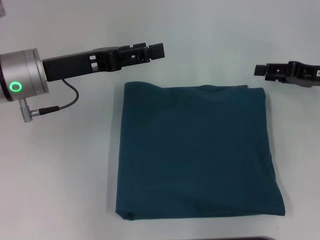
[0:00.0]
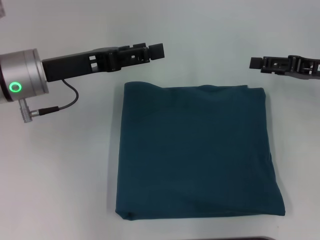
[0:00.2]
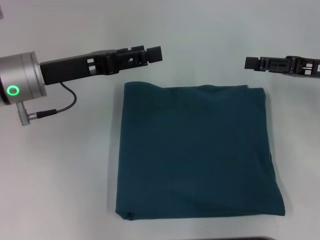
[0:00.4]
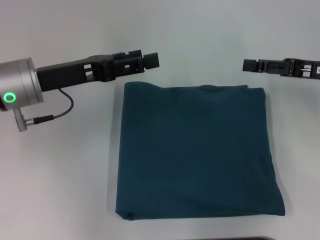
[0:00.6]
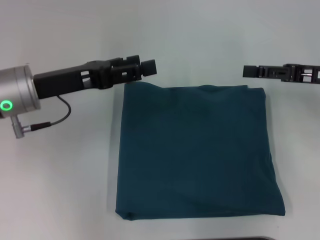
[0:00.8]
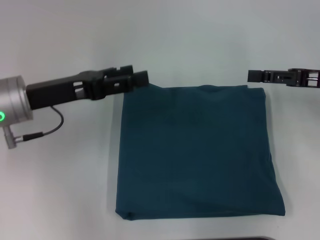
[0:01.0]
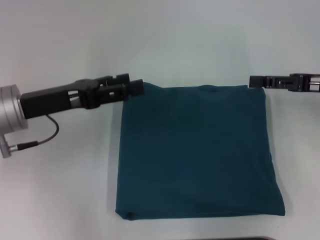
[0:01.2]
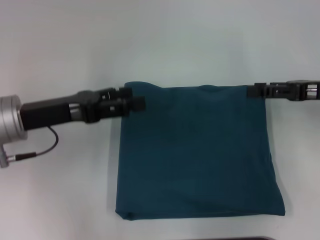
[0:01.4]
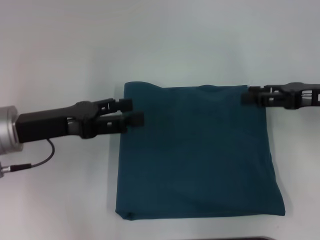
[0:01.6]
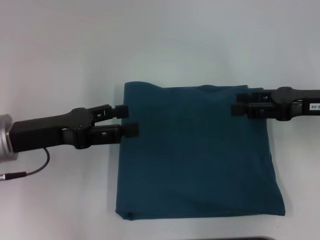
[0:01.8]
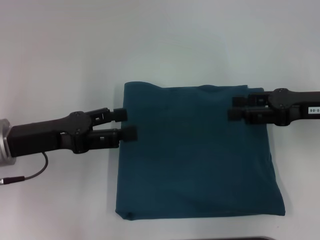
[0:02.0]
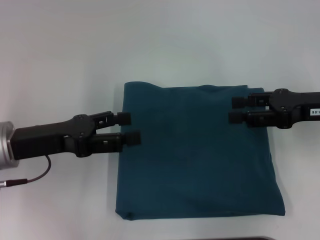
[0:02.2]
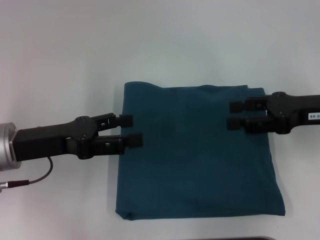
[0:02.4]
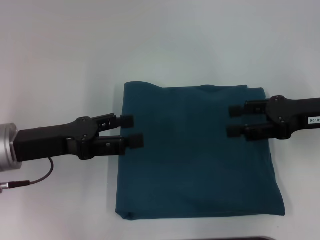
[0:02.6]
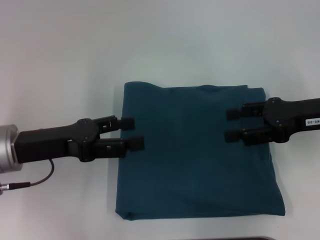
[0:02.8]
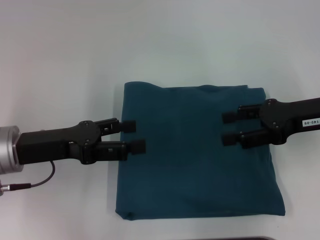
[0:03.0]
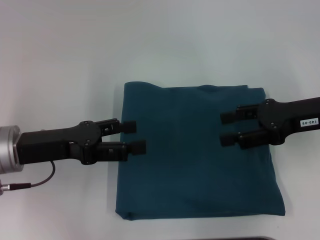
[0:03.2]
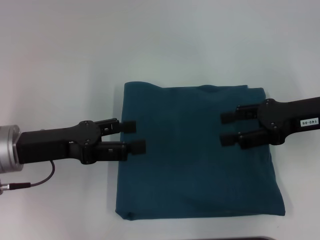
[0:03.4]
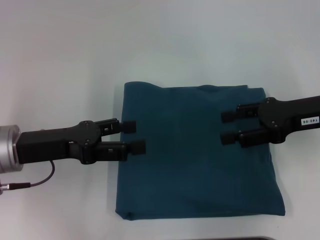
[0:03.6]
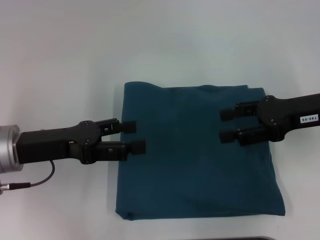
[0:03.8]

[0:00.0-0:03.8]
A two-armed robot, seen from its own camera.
0:00.0 to 0:01.2: The left gripper ends up some 5 cm from where it was; the right gripper opens.
0:02.6 to 0:03.8: There are only small adjustments of the grippers.

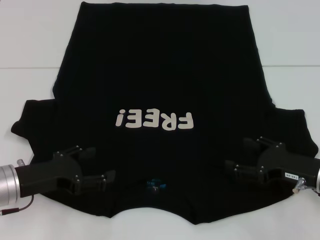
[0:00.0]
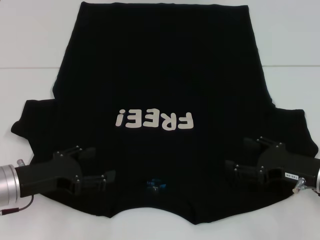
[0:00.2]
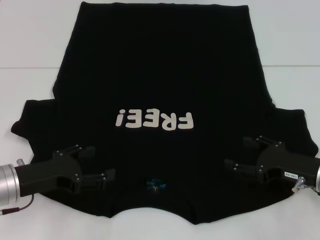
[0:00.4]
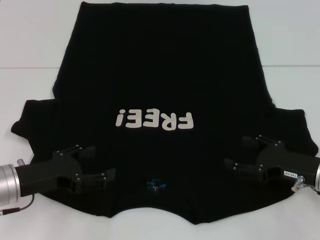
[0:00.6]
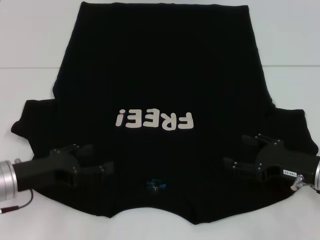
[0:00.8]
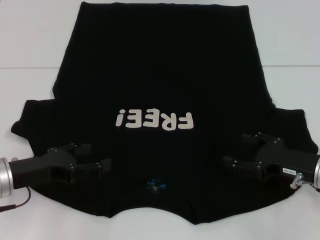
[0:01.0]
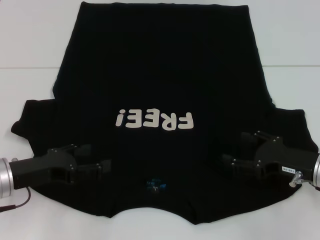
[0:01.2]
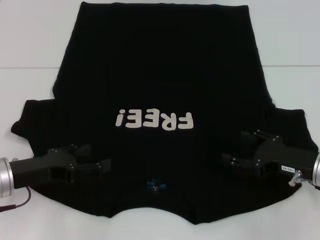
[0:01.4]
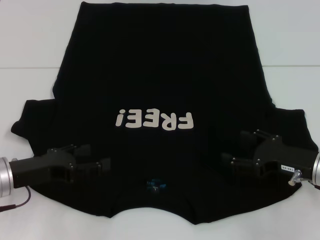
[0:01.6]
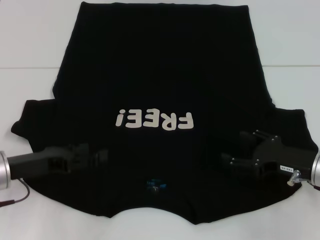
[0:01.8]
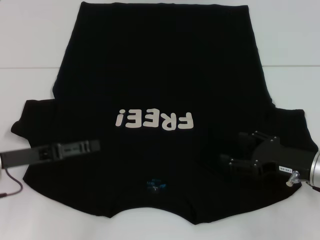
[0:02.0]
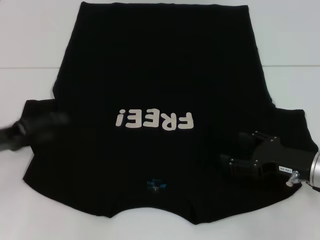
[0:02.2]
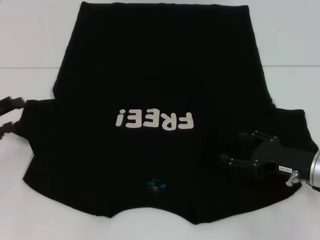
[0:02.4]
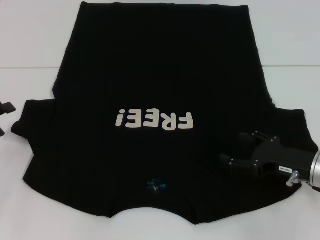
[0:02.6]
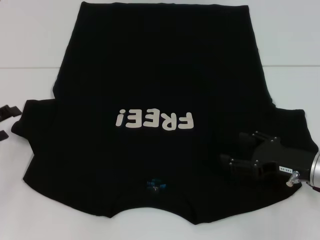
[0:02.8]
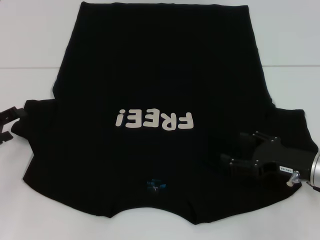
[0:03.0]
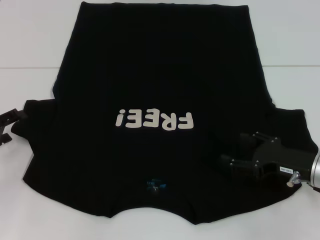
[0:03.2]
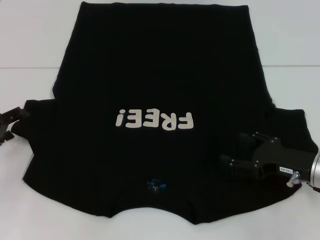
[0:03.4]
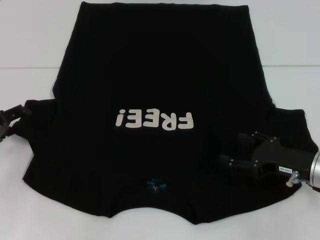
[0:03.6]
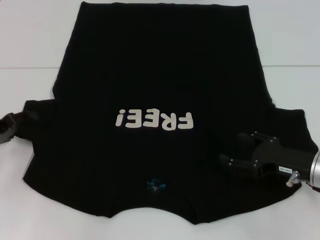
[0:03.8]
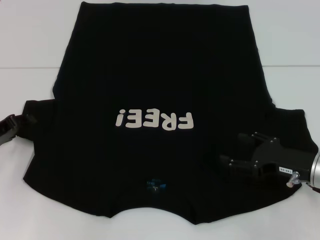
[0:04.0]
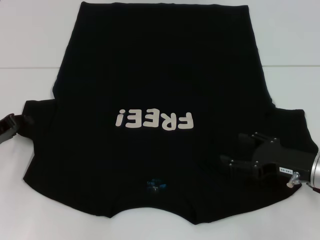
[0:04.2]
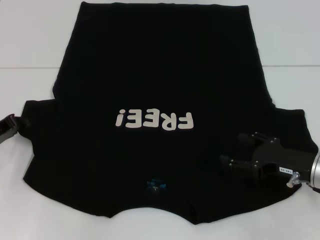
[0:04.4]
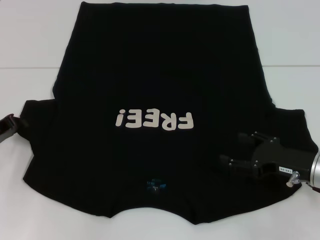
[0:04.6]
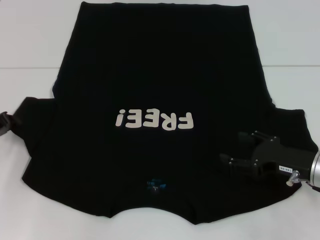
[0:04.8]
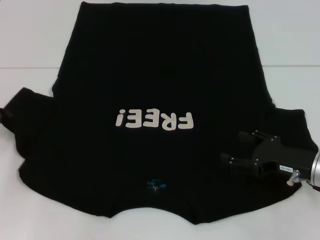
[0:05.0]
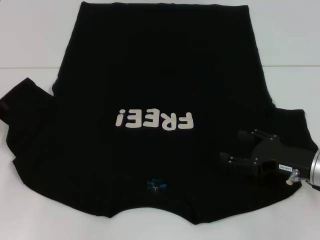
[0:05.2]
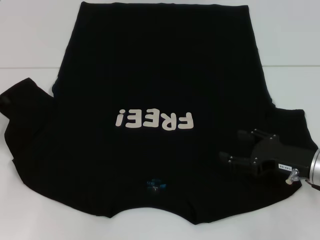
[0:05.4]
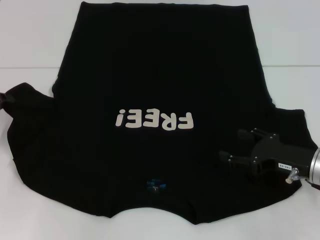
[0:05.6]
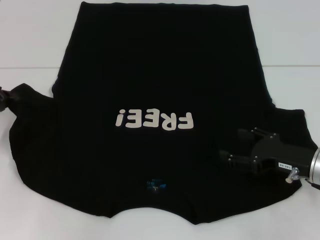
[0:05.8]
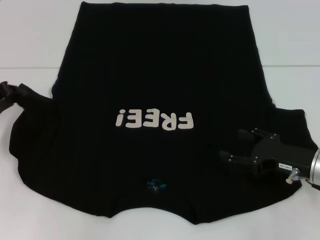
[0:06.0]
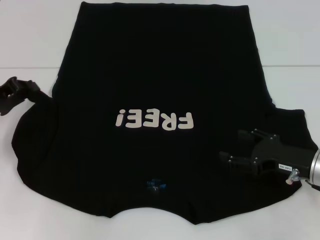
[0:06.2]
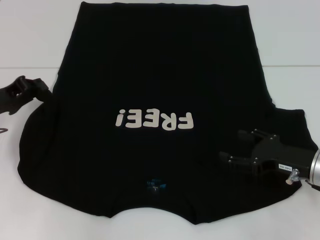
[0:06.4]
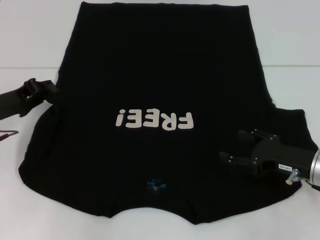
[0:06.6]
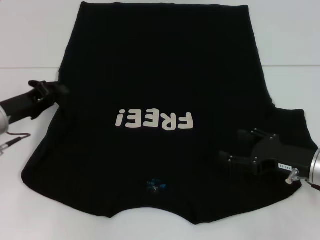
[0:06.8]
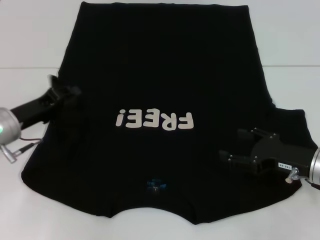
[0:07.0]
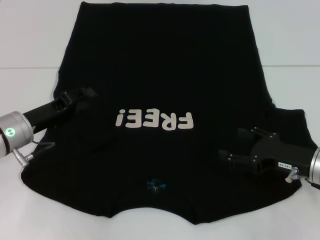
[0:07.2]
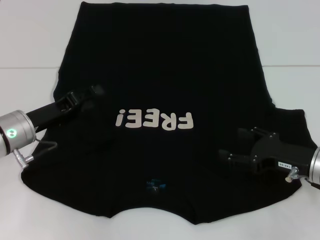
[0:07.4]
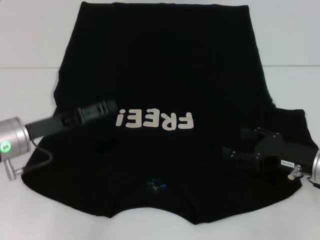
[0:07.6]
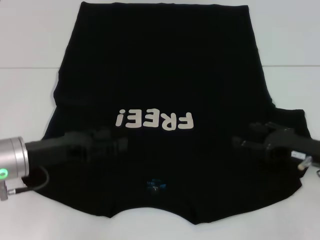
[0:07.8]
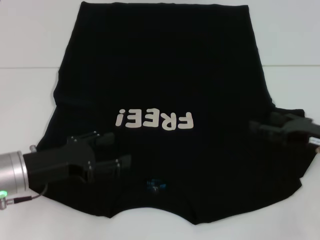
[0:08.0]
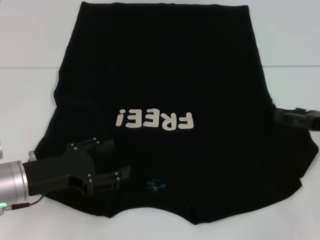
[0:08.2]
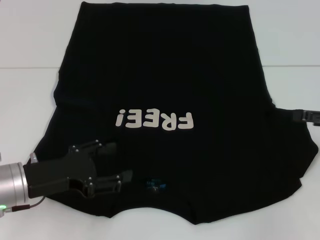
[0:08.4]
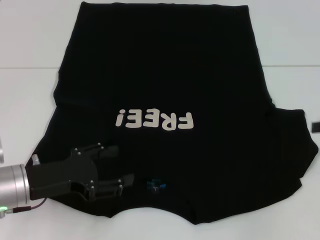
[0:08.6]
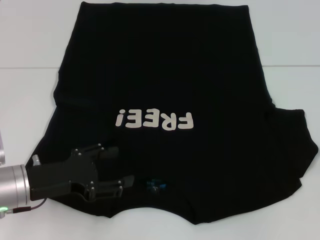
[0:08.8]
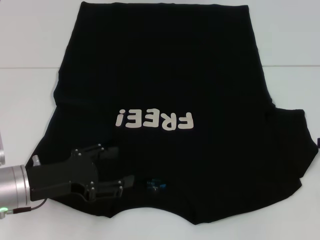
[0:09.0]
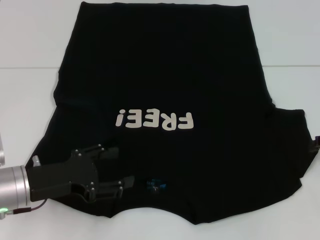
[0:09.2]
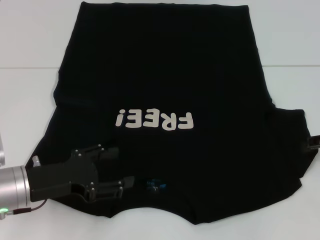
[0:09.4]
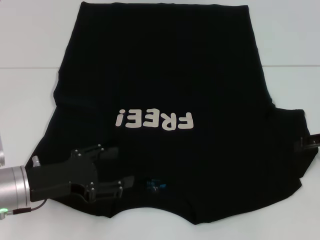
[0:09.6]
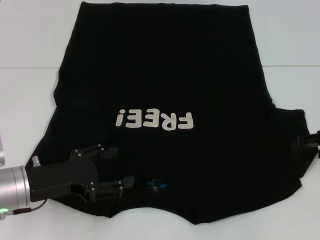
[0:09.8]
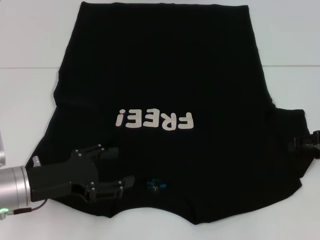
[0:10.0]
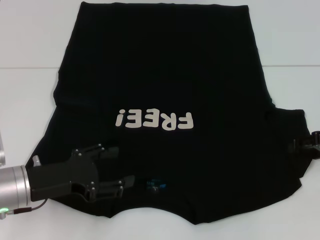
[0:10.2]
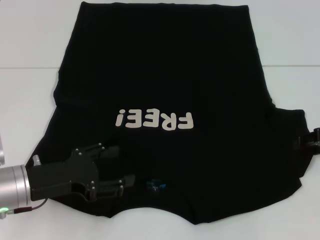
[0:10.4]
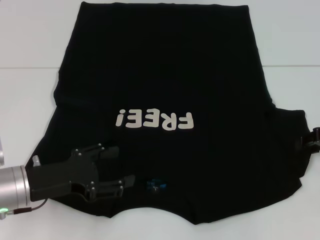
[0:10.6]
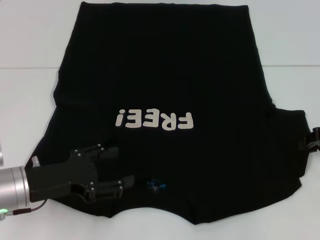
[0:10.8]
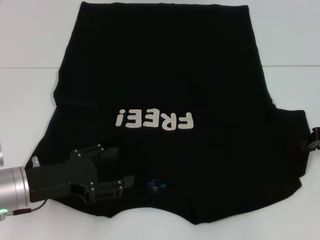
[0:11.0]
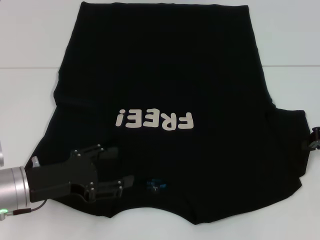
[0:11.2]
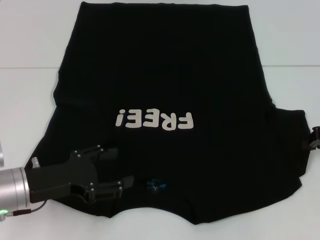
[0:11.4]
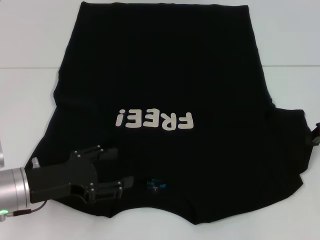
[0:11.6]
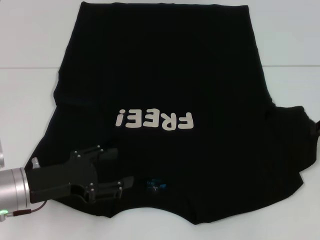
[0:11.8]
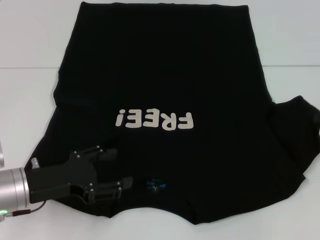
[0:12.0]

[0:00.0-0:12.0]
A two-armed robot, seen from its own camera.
Step, 0:00.0 to 0:07.6: Fold the bottom left sleeve with your left hand.
0:00.0 to 0:01.6: There are only small adjustments of the grippers.
0:01.6 to 0:03.0: The left gripper travels to the left by roughly 10 cm.
0:03.0 to 0:04.4: The left gripper closes up.
0:04.4 to 0:06.0: There are only small adjustments of the grippers.
0:06.0 to 0:07.6: The left gripper goes about 10 cm to the right, and opens its fingers.
0:07.6 to 0:09.0: The right gripper moves to the right and upward, approximately 15 cm, while the left gripper is displaced backward by roughly 5 cm.
0:10.4 to 0:12.0: The right gripper closes its fingers.

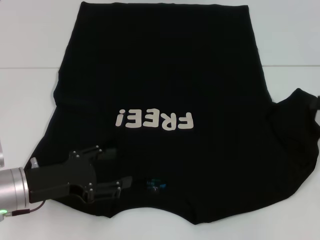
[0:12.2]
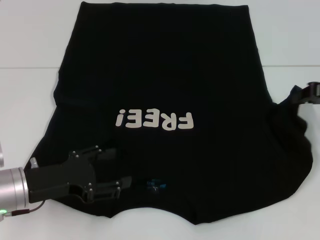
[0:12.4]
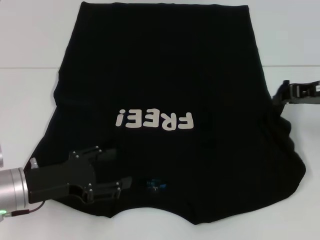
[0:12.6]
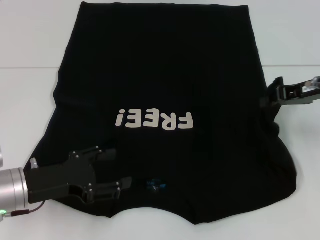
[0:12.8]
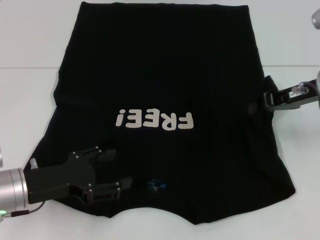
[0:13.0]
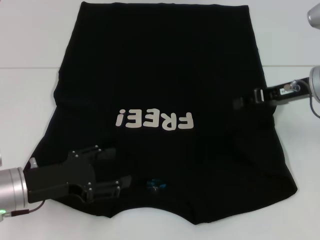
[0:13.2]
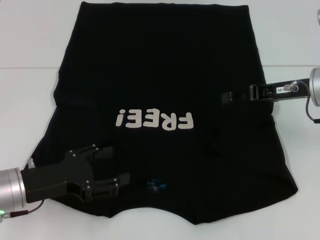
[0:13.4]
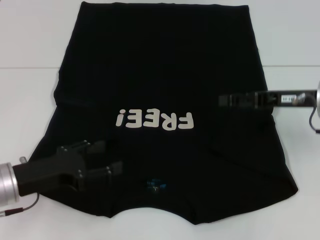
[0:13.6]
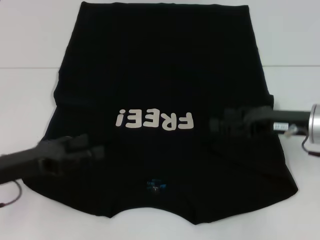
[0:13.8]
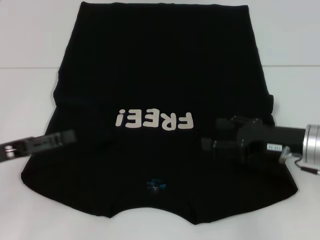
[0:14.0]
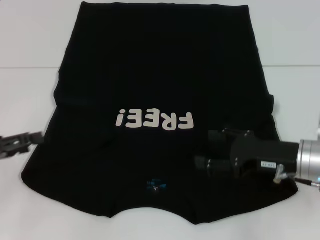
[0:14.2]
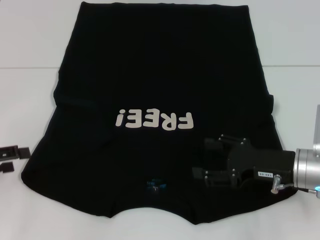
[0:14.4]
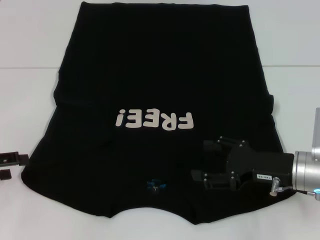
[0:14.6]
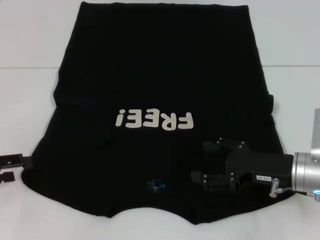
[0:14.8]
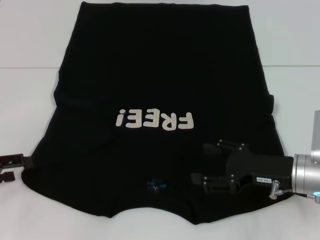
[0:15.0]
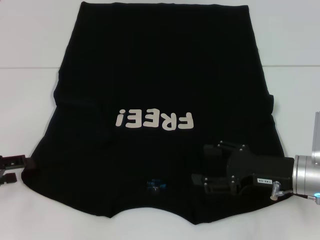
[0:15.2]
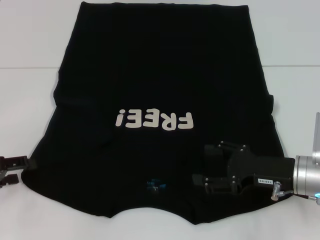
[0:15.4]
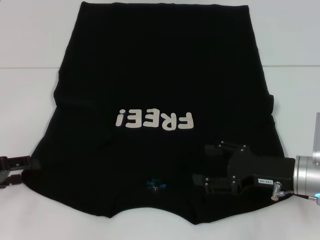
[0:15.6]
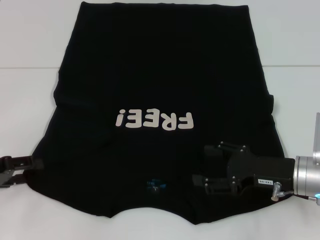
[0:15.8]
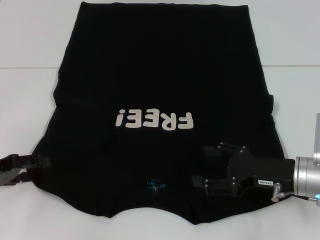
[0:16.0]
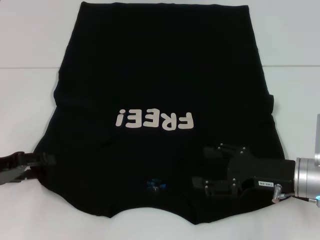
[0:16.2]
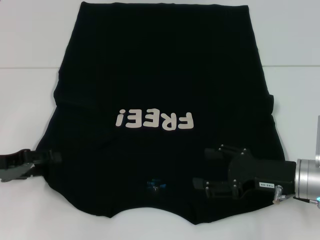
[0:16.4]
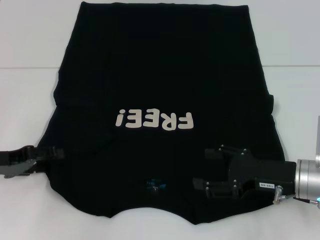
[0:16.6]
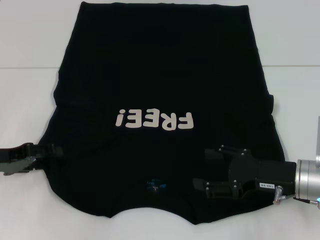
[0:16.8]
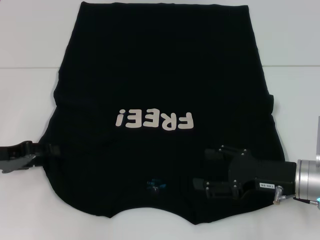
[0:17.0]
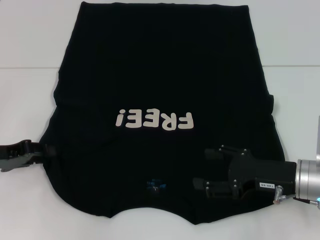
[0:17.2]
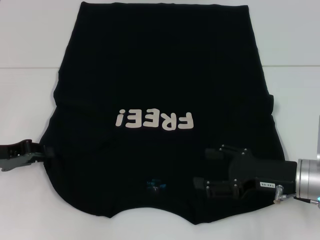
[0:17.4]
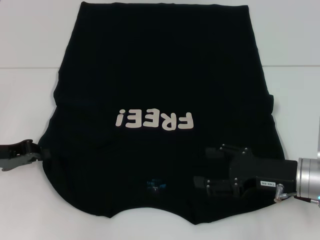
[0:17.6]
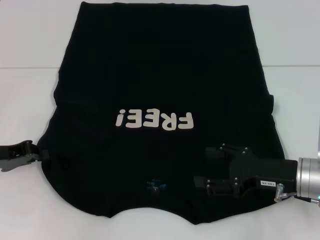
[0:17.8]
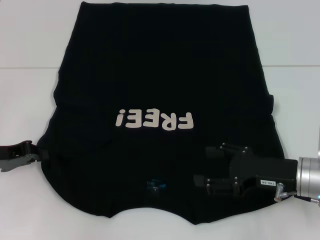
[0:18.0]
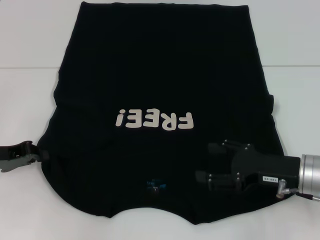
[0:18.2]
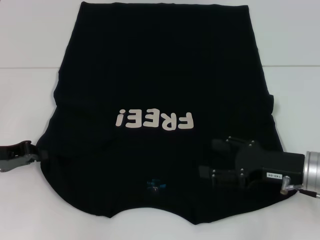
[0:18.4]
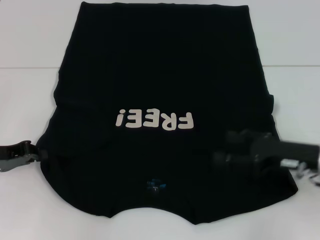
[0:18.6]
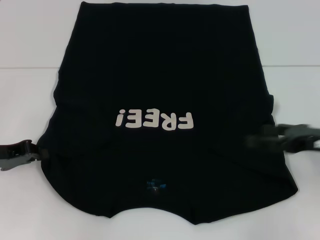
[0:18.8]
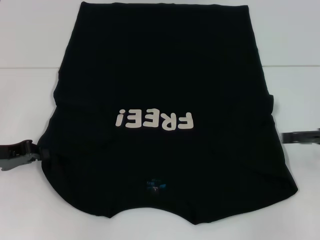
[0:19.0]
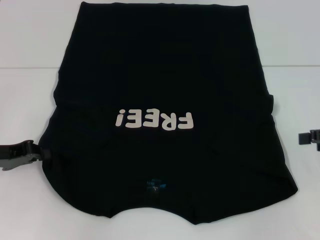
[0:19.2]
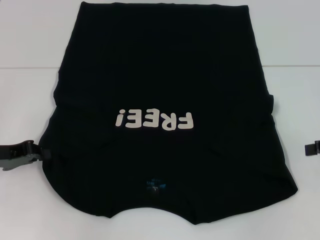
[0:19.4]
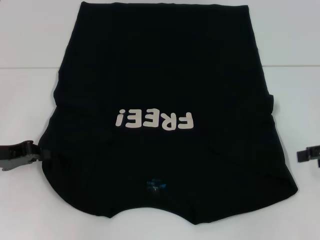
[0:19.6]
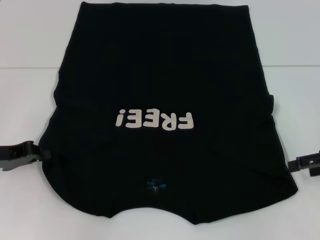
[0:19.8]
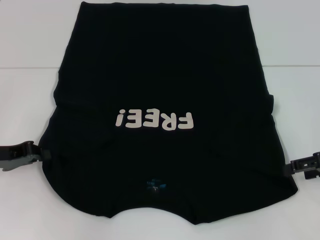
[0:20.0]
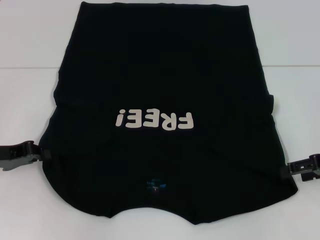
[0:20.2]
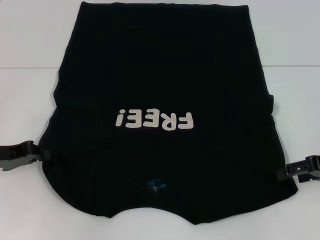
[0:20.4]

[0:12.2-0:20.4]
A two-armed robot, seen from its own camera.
Step, 0:13.6 to 0:17.8: Grab the bottom left corner with your left hand.
0:12.2 to 0:13.8: The right gripper heads to the left, covering some 10 cm, and opens its fingers.
0:13.8 to 0:15.4: The left gripper moves to the left, about 10 cm; the right gripper moves downward, roughly 5 cm.
0:15.4 to 0:17.2: The grippers make only small movements.
0:17.2 to 0:18.8: The right gripper goes roughly 10 cm to the right and upward.
